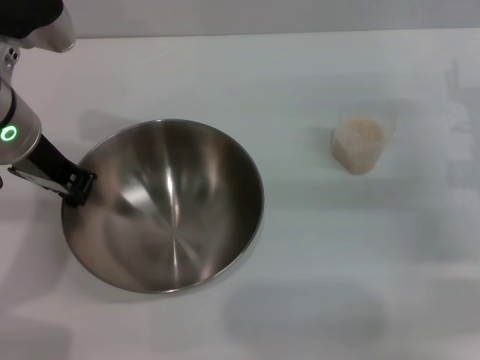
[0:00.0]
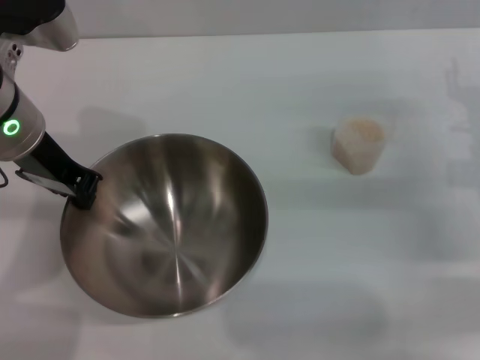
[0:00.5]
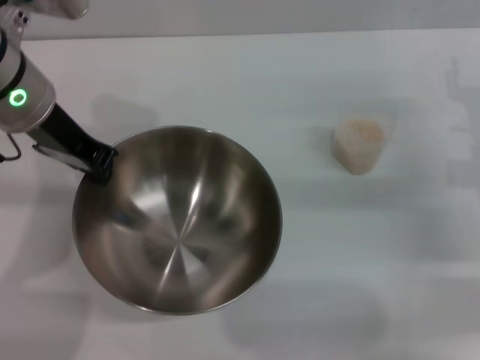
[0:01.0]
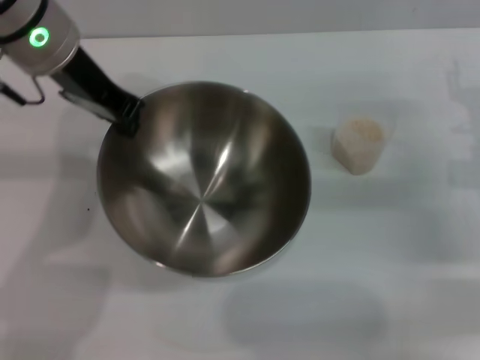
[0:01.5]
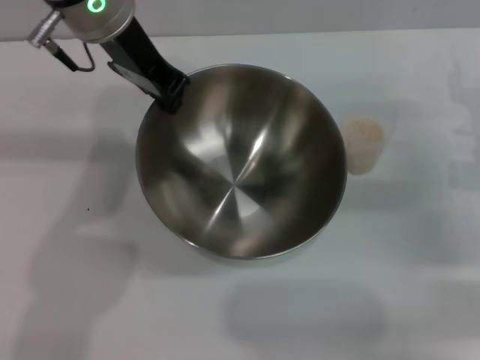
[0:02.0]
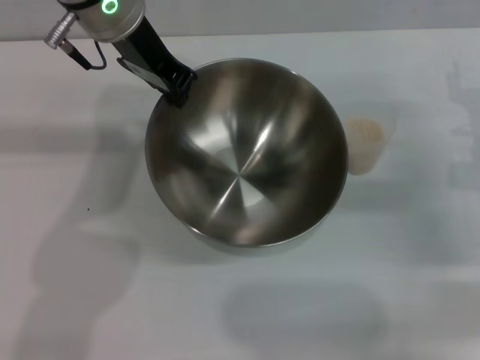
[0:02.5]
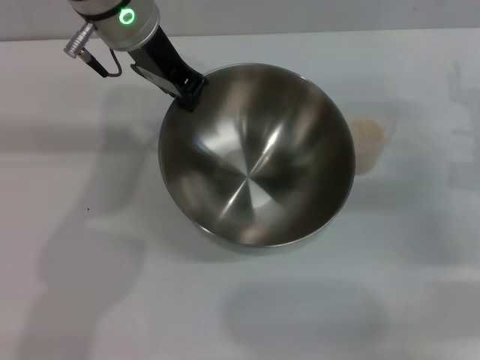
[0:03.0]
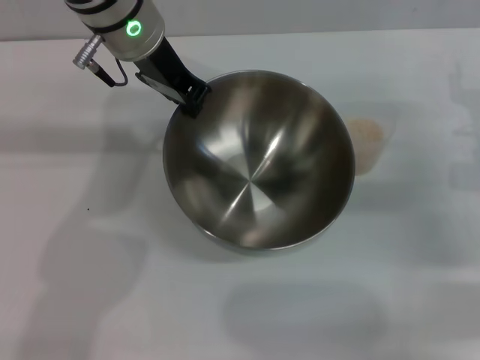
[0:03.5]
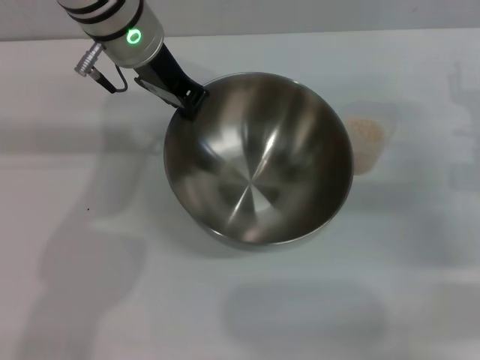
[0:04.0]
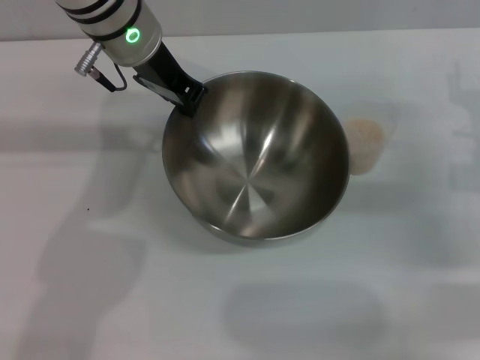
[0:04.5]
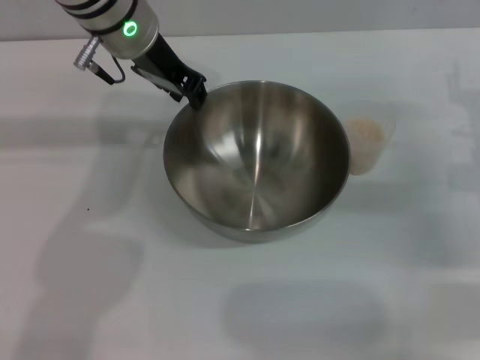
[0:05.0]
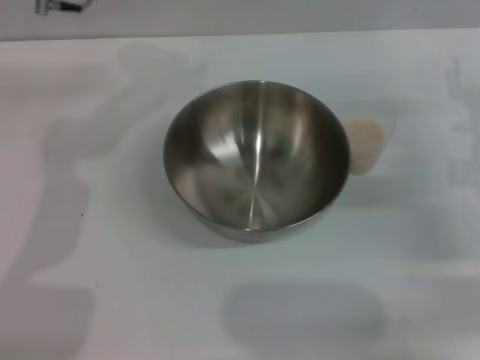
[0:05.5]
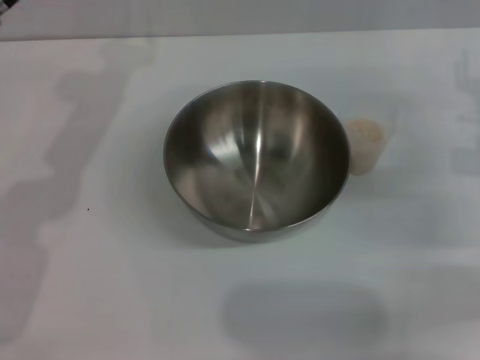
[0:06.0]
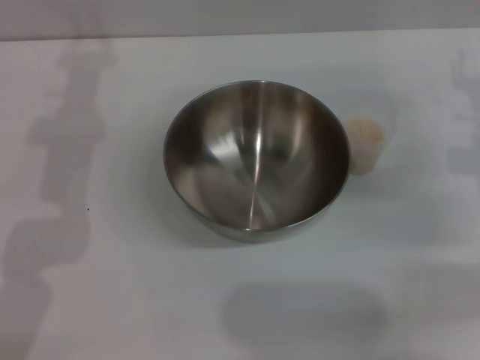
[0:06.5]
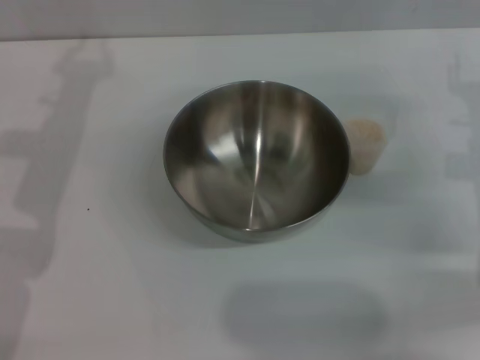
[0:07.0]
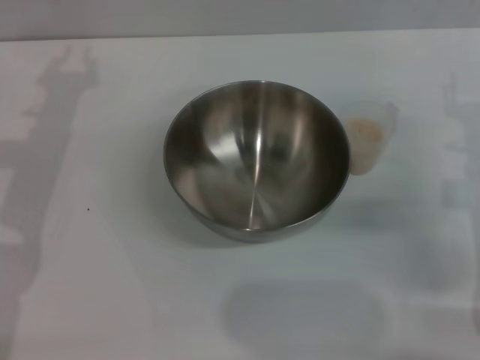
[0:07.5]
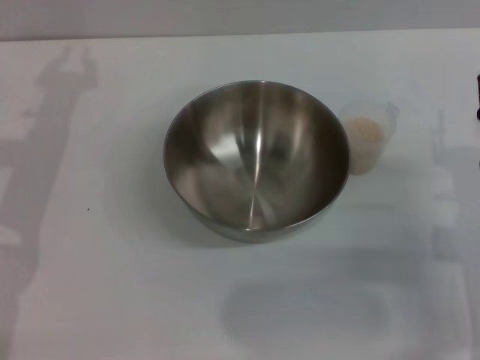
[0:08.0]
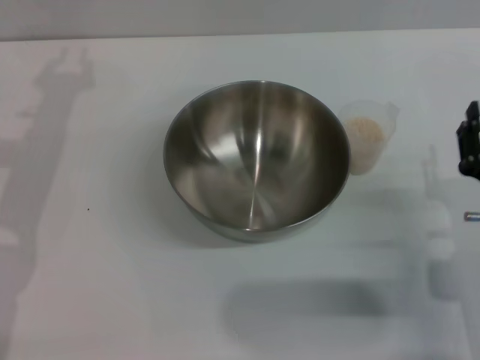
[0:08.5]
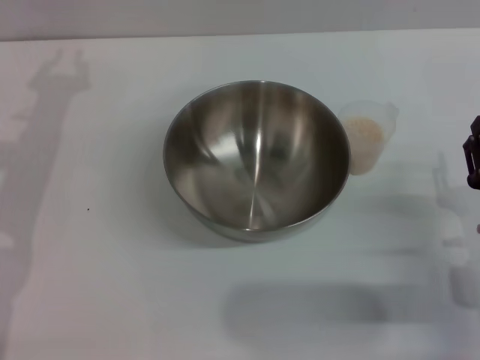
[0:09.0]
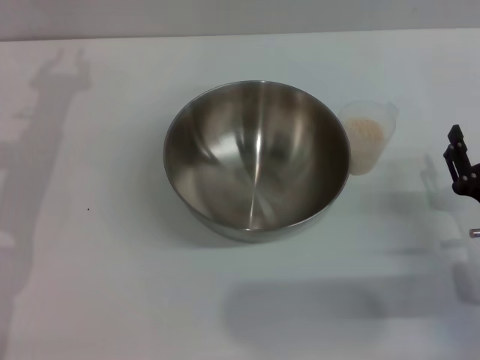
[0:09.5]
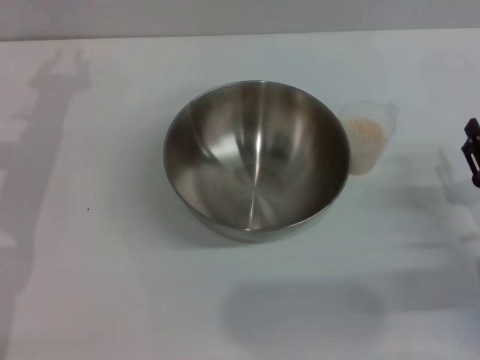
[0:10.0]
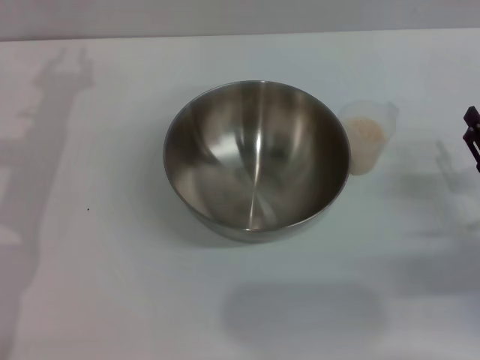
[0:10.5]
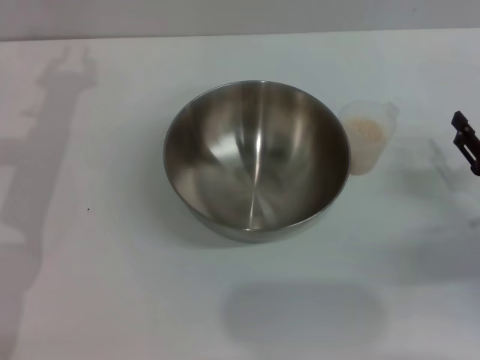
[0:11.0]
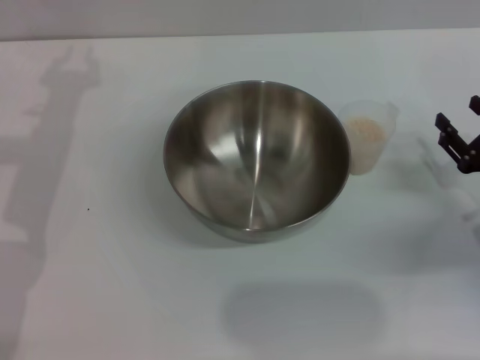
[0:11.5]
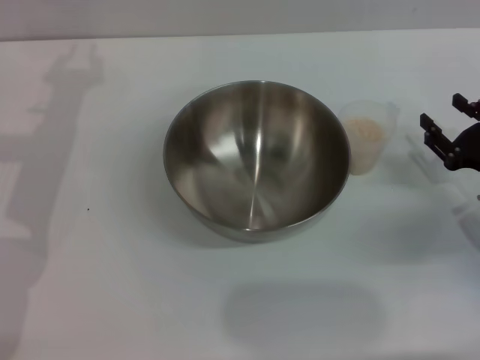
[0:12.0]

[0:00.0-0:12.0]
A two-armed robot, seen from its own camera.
Task of the whole recording: Place the bowl in the middle of the table with one hand and pour the rice from the grain cup into it with the other hand.
Step, 0:00.0 to 0:03.0: Pick up the bowl with the left gripper.
Step, 0:03.5 to 0:05.0: Place the bowl in the center of view with the left gripper.
0:00.0 to 0:02.0: The left gripper is displaced to the right, forward and upward by about 10 cm.
0:02.0 to 0:04.0: The left gripper changes place by roughly 5 cm.
0:04.0 to 0:06.0: The left gripper heads to the left, covering about 10 cm, and opens its fingers.
0:06.0 to 0:08.0: The right gripper heads backward, downward and to the left, covering some 15 cm.
0:08.0 to 0:10.0: The right gripper shifts by approximately 5 cm.
0:10.0 to 0:12.0: The right gripper shifts about 5 cm forward.

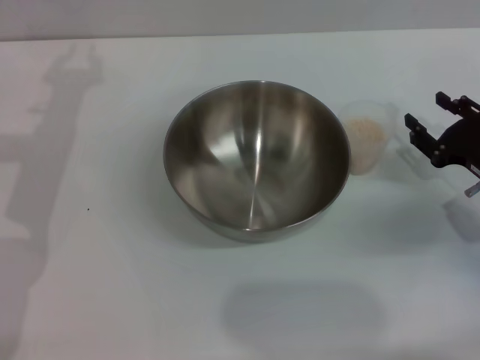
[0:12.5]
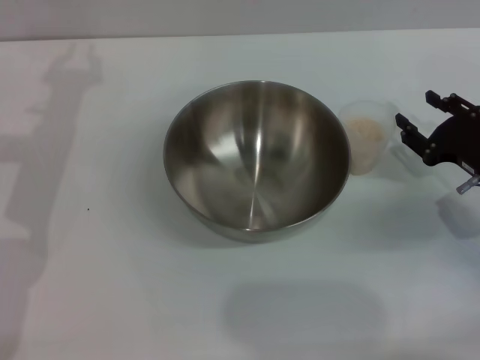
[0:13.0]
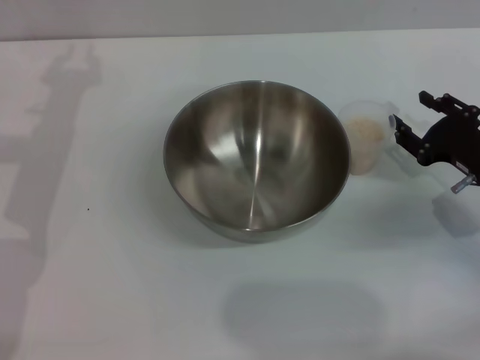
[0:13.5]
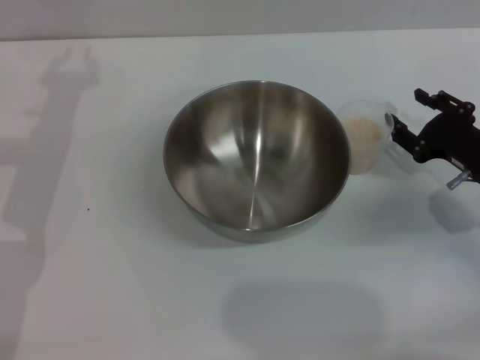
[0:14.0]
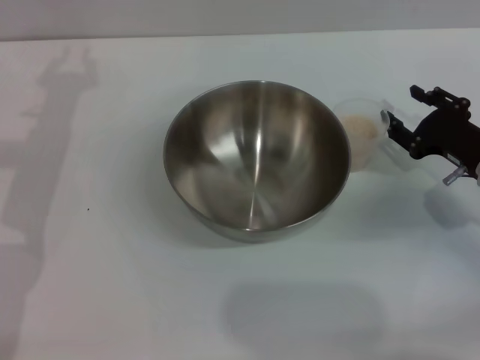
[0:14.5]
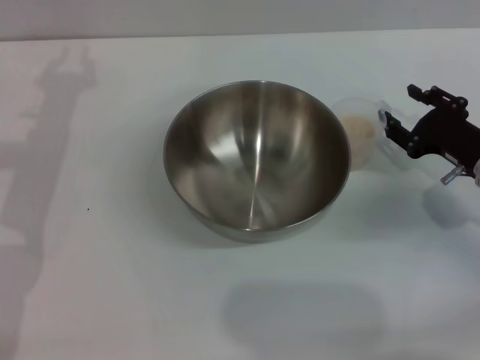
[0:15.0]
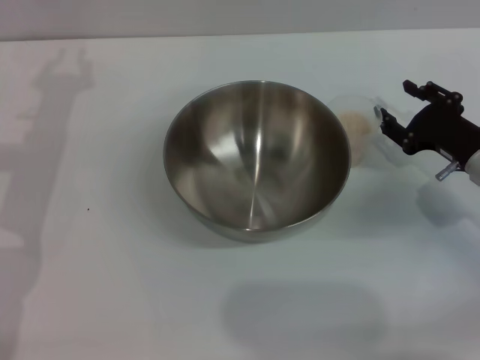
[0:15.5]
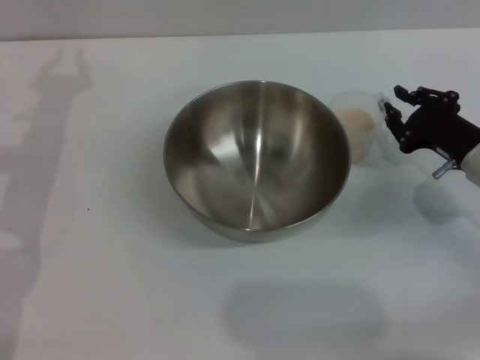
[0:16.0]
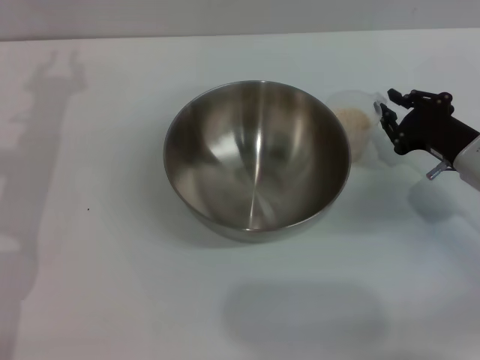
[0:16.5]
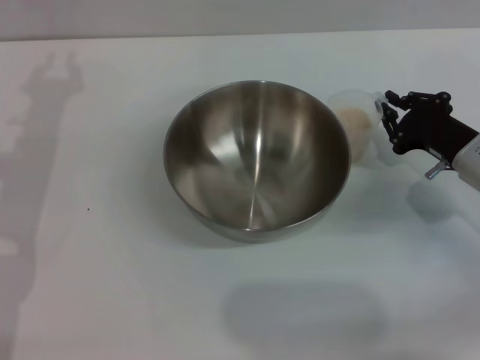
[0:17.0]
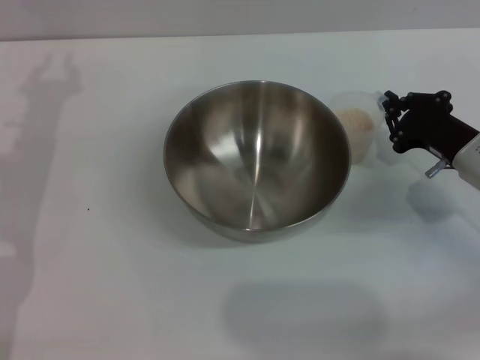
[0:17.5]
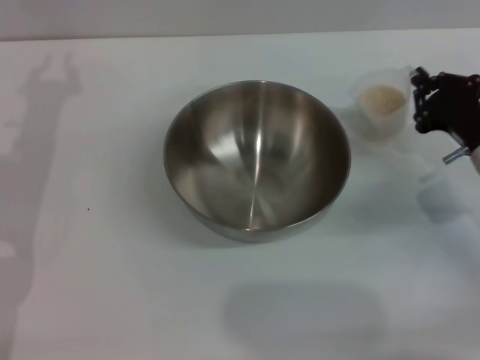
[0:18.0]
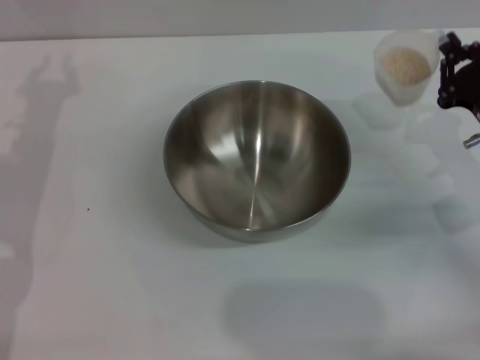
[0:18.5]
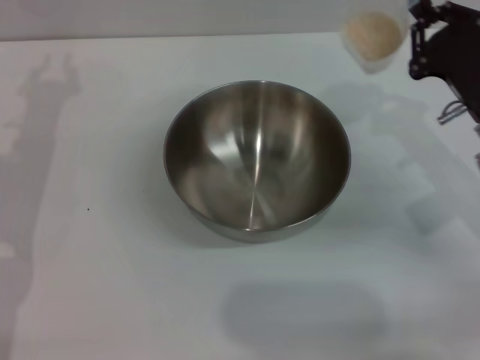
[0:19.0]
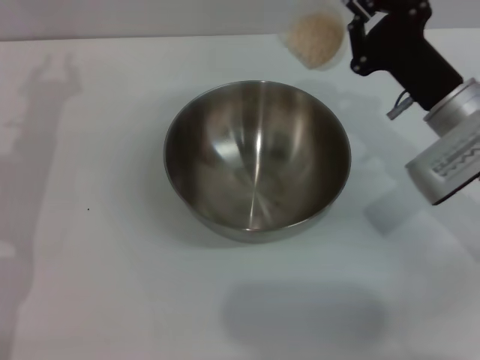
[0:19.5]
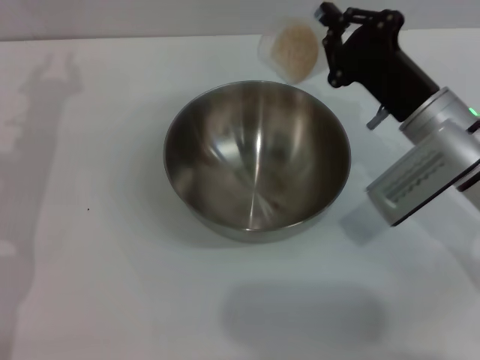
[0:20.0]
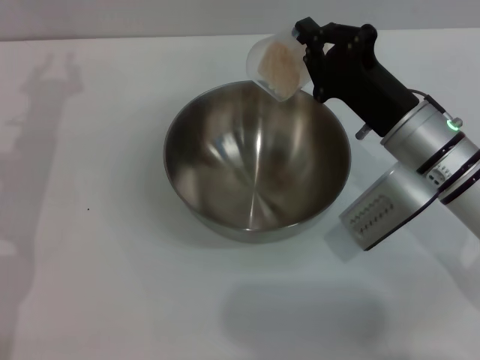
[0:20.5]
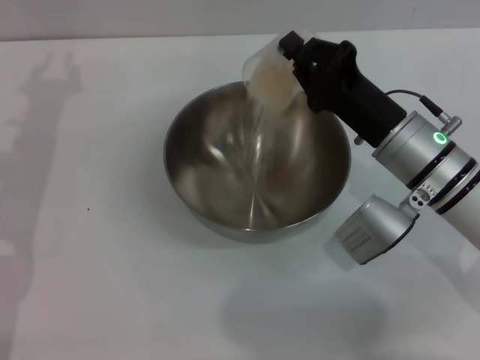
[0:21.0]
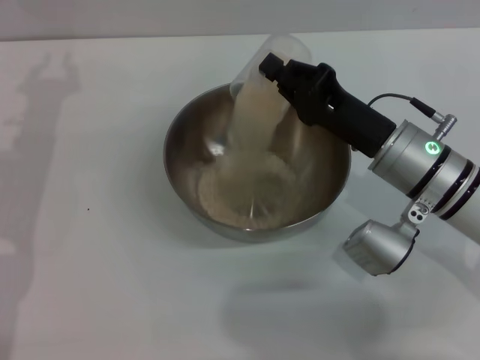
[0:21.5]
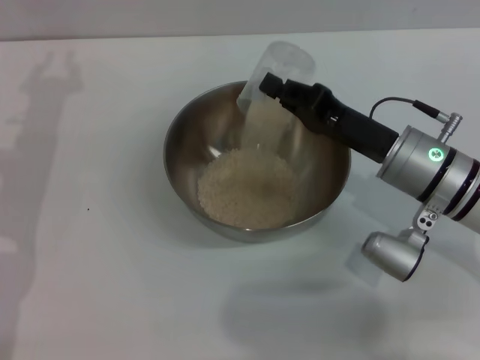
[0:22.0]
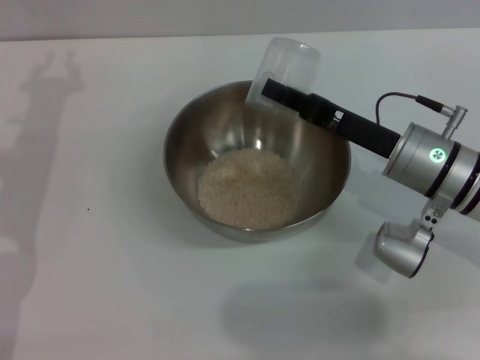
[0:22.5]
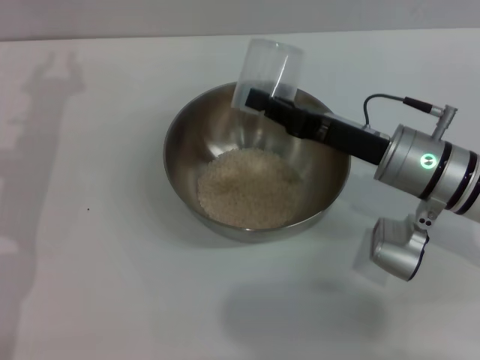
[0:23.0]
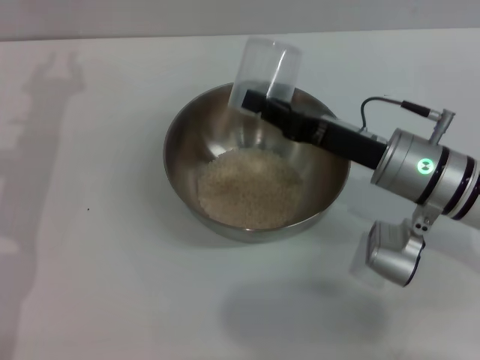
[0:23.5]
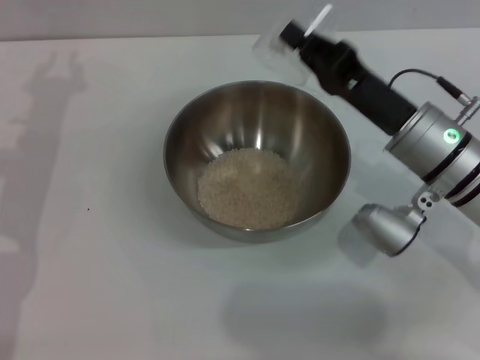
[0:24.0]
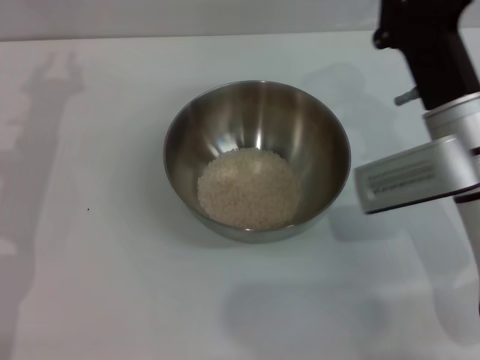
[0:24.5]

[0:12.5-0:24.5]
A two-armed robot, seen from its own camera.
Task of the whole recording: Place the bowl in the middle of the table with one hand and pour the rice from the grain cup into it with the other hand.
Step, 0:12.5 to 0:18.5: Pick up the cup with rice in it with the right gripper.
Step, 0:19.0 to 0:23.5: Pour the rice from the cup into the bowl with the right gripper.
0:12.5 to 0:14.5: The grippers stay close to where they were, moving slightly.
0:14.5 to 0:16.5: The right gripper closes its fingers.
0:16.5 to 0:18.5: The right gripper closes up.
0:18.5 to 0:20.5: The right gripper heads to the left, covering approximately 10 cm.

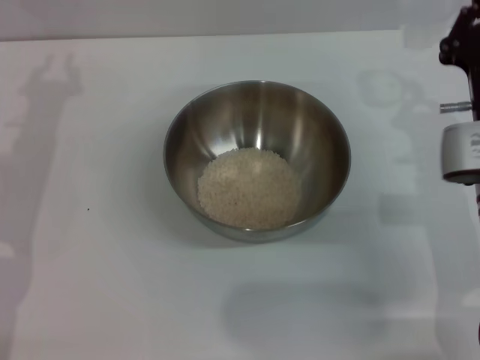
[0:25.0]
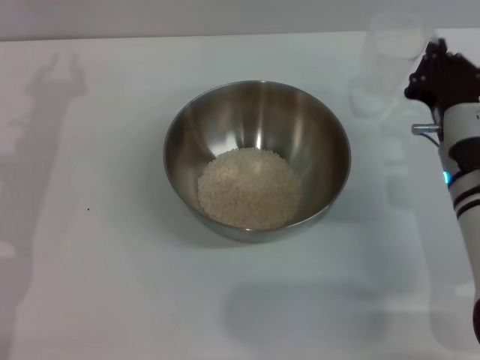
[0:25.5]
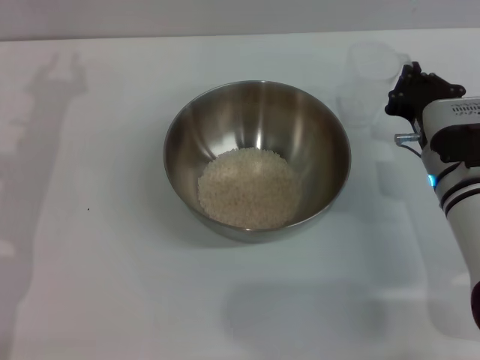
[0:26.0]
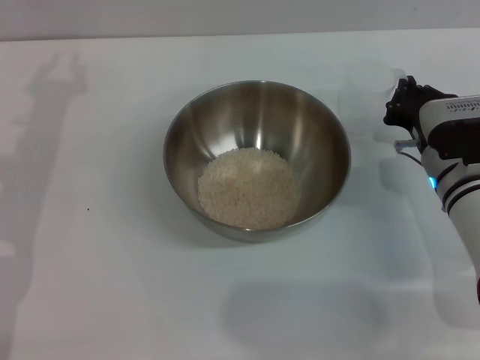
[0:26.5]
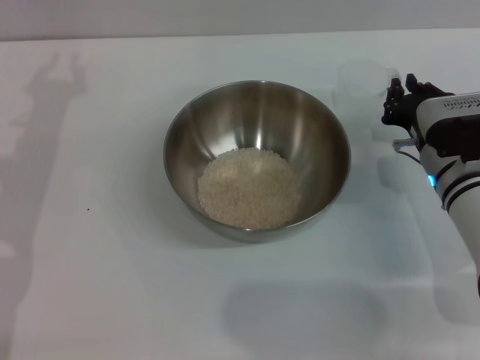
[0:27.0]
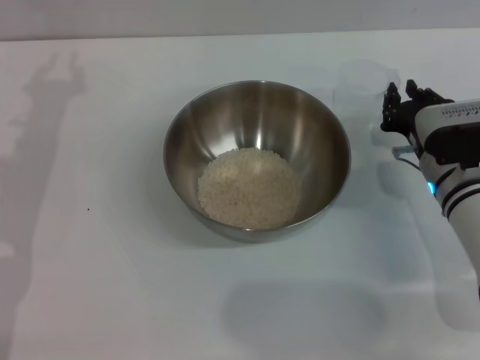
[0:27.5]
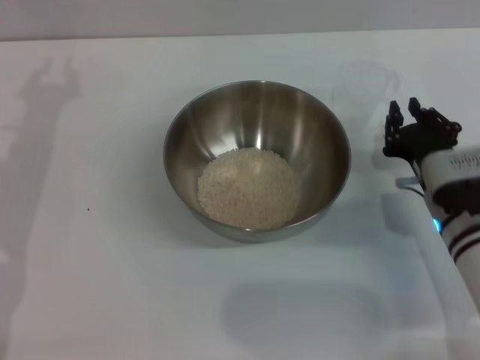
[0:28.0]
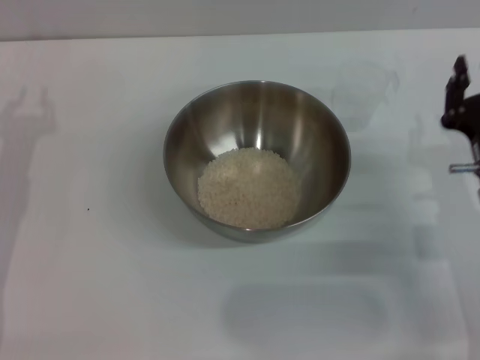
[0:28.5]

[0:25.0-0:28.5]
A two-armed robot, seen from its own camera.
Task of the whole recording: Place the bowl in the middle of the table with one hand and pour the rice from the grain cup into it with the other hand.
Step, 0:25.0 to 0:28.0: Place the cup on the table with the right gripper.
0:25.0 to 0:27.0: The right gripper heads downward, covering about 5 cm.
0:27.0 to 0:28.5: The right gripper travels backward by about 10 cm.
